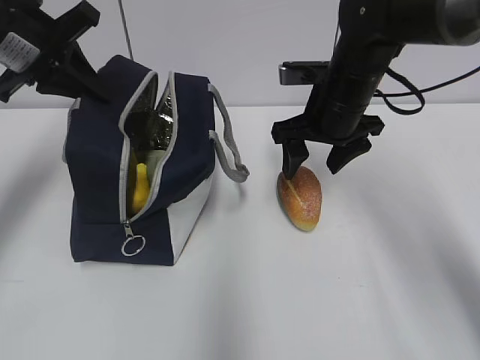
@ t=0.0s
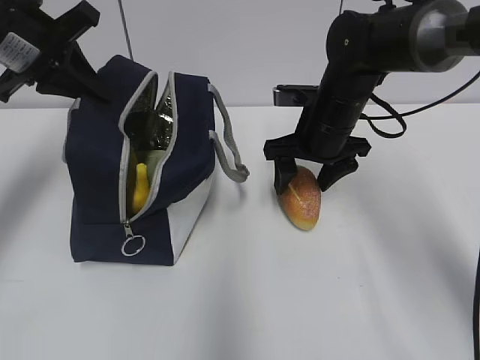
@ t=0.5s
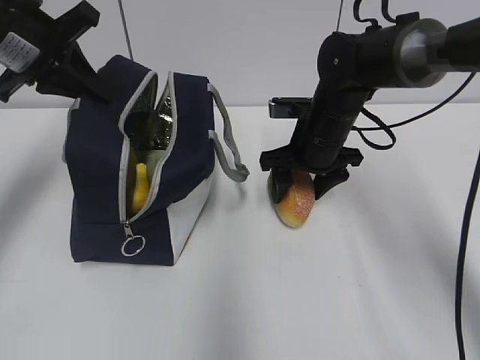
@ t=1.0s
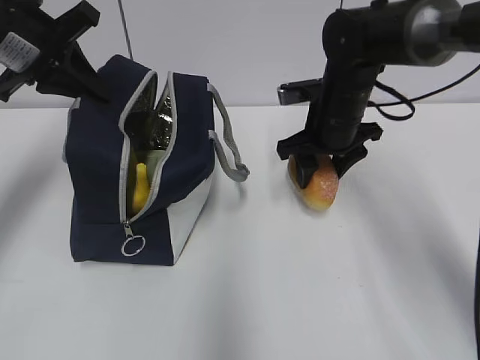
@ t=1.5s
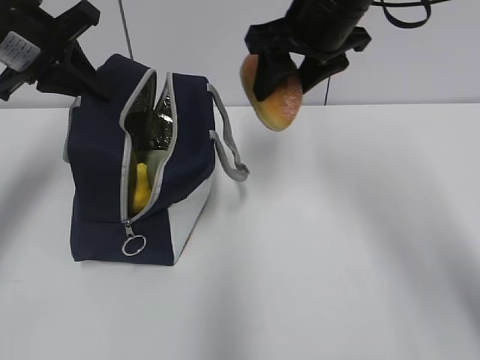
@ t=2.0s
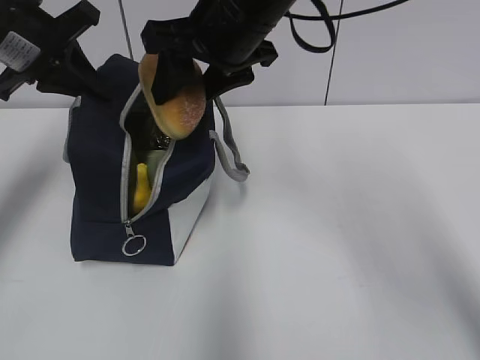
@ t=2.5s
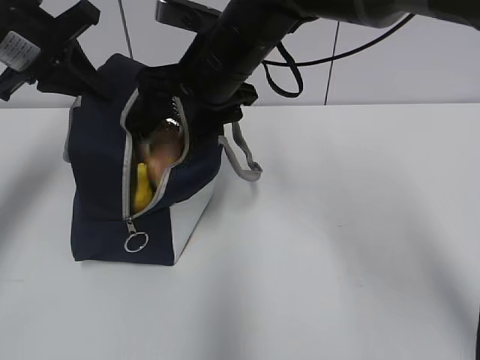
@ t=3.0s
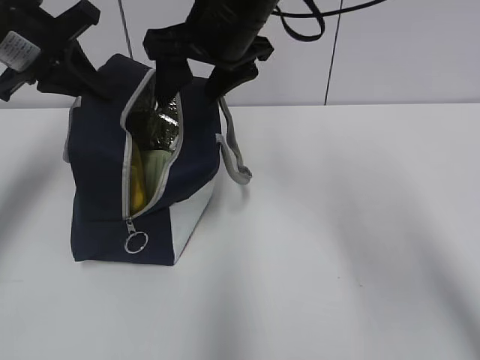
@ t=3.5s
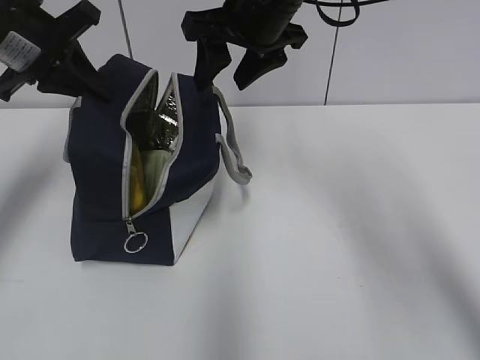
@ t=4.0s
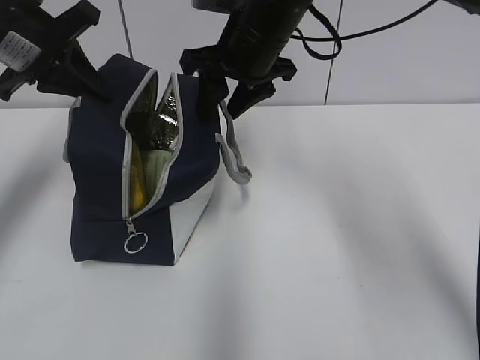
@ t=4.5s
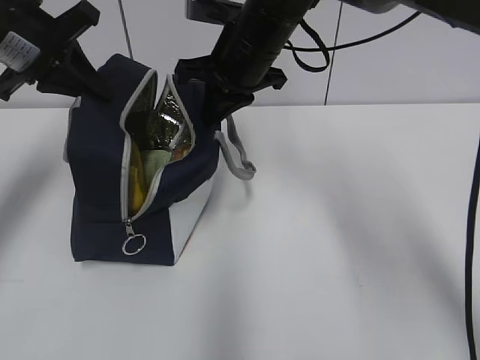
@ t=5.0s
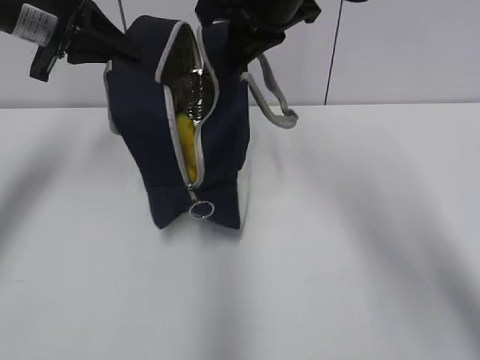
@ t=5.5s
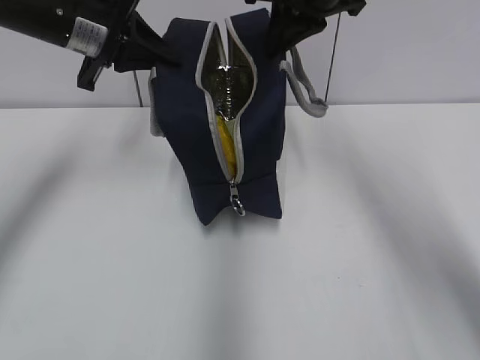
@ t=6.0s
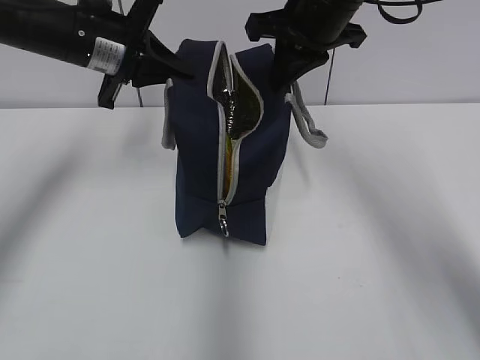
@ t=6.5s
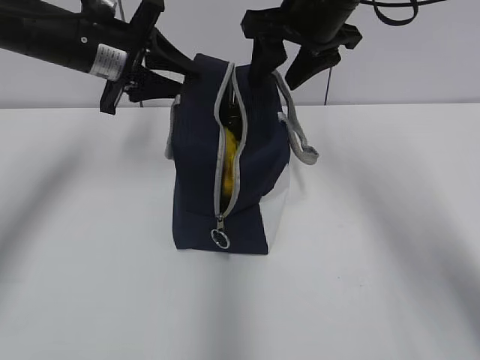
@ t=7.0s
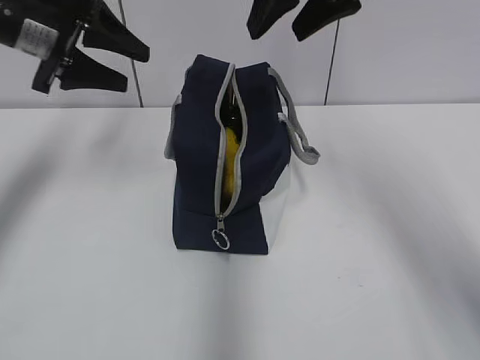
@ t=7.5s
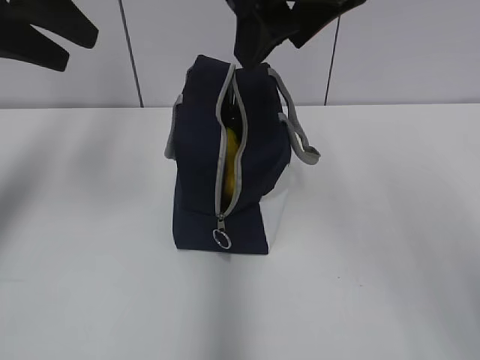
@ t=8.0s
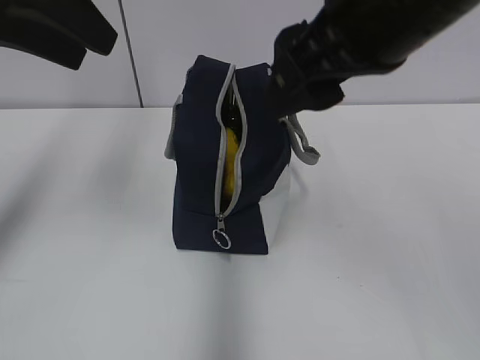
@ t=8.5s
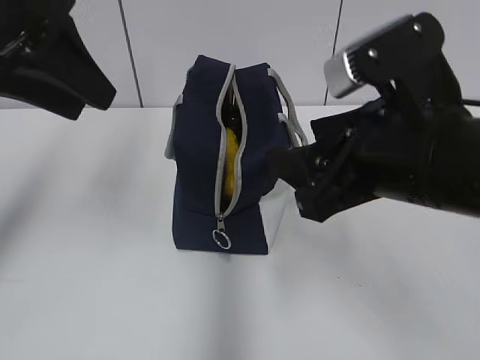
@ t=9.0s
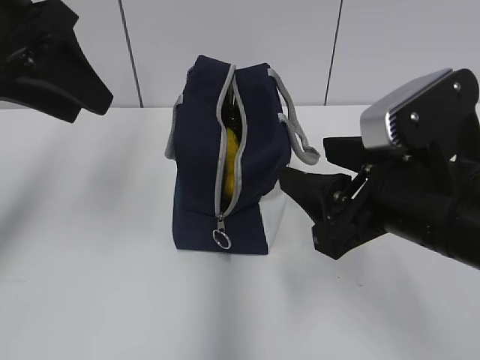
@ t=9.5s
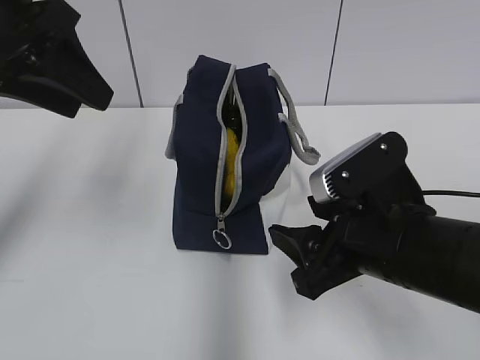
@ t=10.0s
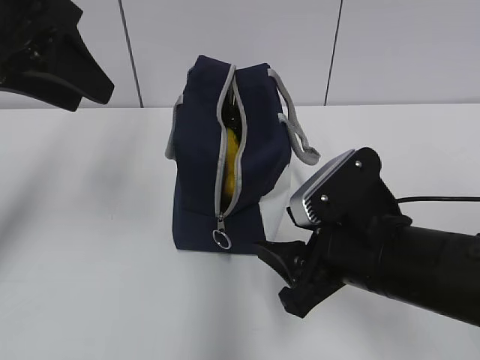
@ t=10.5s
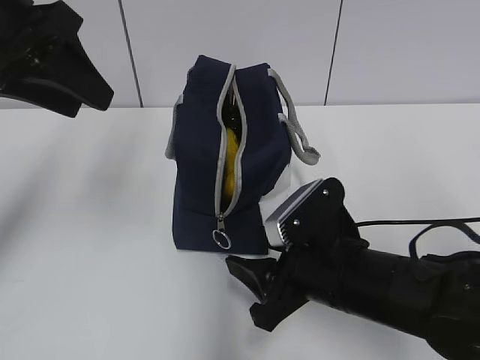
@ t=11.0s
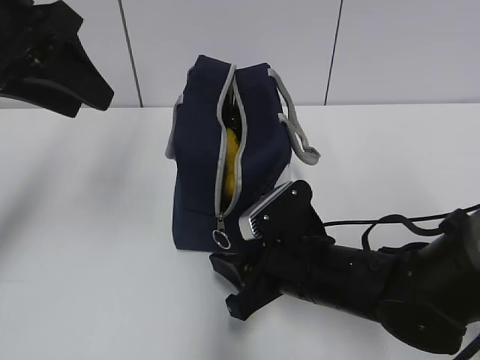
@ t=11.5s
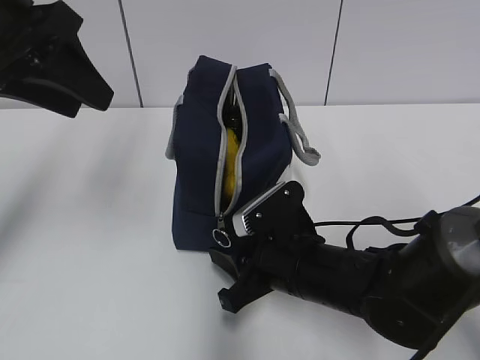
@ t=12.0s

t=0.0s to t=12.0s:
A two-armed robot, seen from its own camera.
t=0.0s to t=2.0s: The right gripper is displaced upward by about 10 cm.
t=2.0s to t=4.0s: The right gripper shifts roughly 5 cm to the left.
t=4.0s to t=6.0s: Both grippers travel together to the right, some 5 cm. The right gripper closes up.
t=6.0s to t=8.0s: The left gripper is displaced backward, upward and to the left by approximately 10 cm, and opens; the right gripper heads backward, covering about 10 cm, and opens up.
t=8.0s to t=10.0s: The left gripper shifts by about 5 cm. The right gripper travels downward by about 20 cm.
t=10.0s to t=12.0s: The right gripper travels downward, to the left and forward by approximately 10 cm, and closes up.

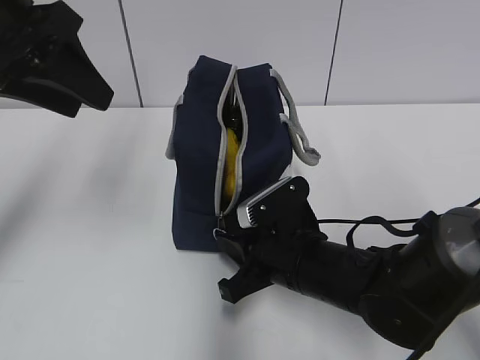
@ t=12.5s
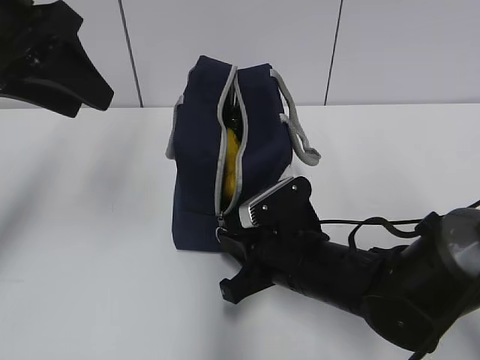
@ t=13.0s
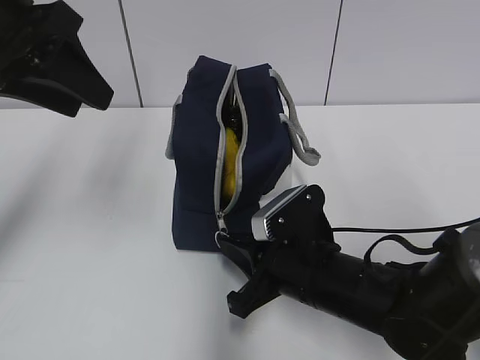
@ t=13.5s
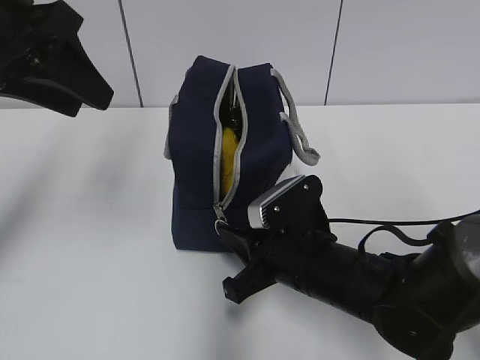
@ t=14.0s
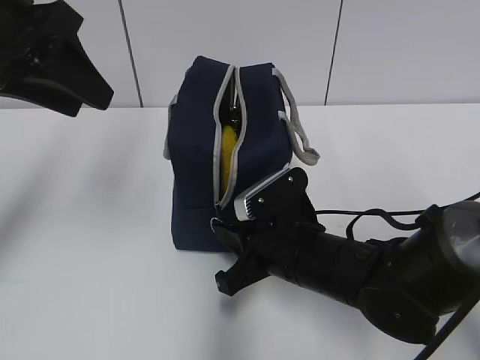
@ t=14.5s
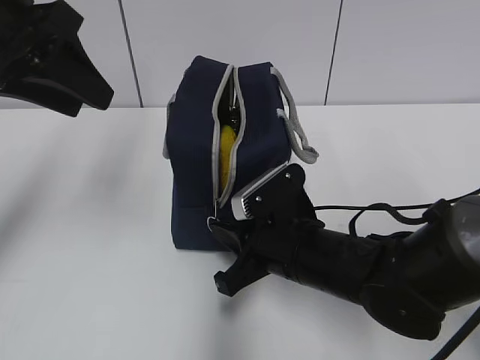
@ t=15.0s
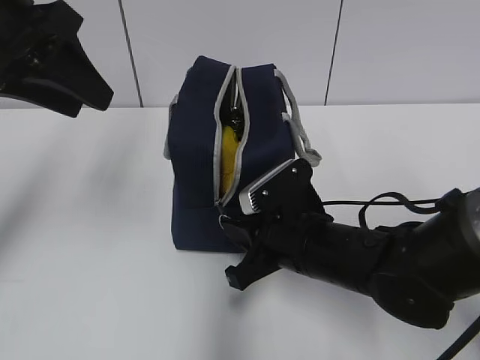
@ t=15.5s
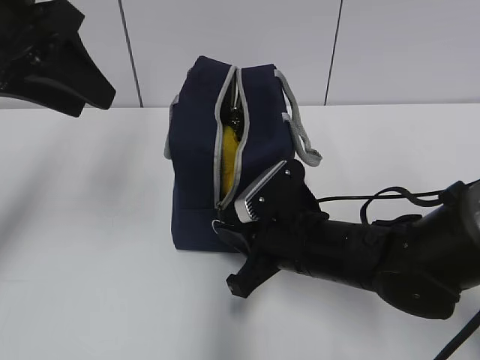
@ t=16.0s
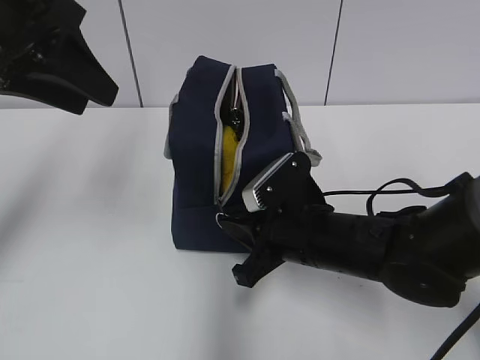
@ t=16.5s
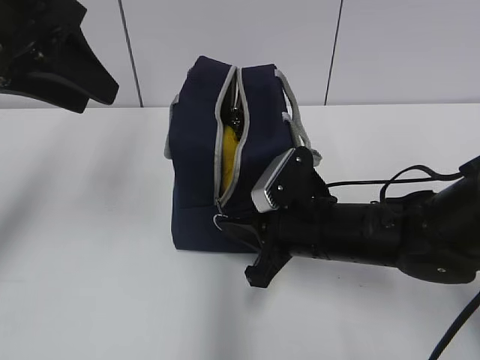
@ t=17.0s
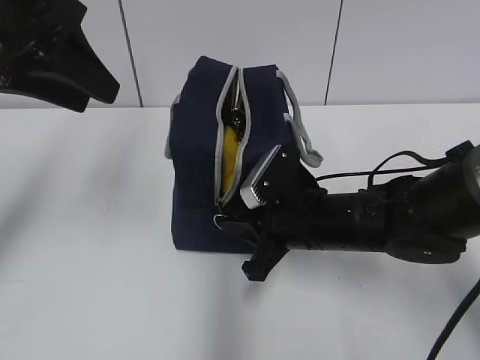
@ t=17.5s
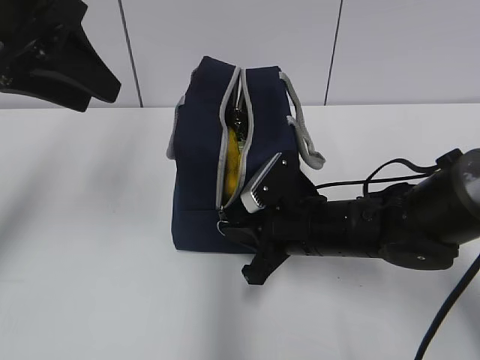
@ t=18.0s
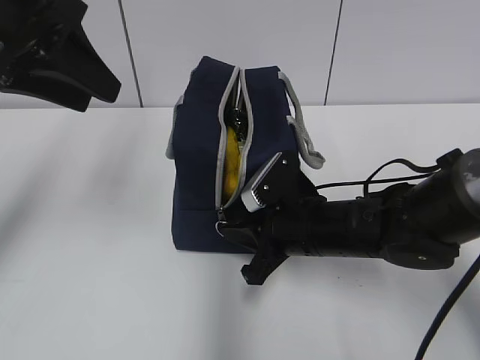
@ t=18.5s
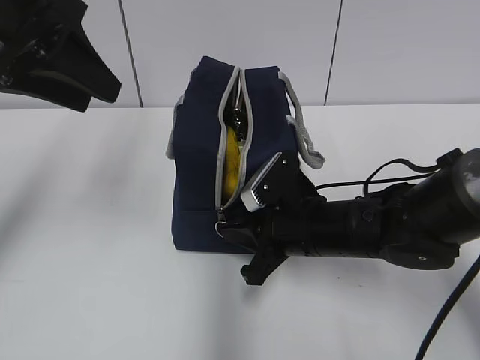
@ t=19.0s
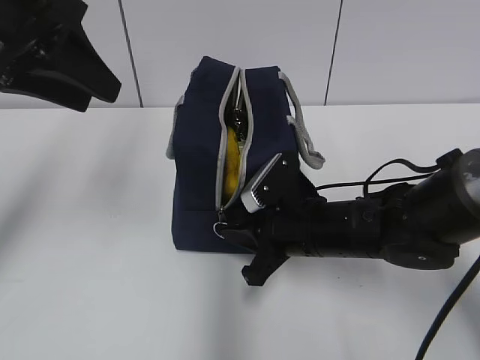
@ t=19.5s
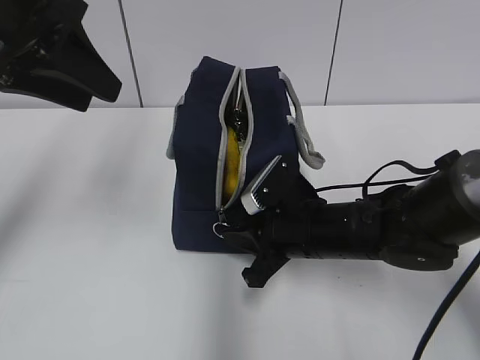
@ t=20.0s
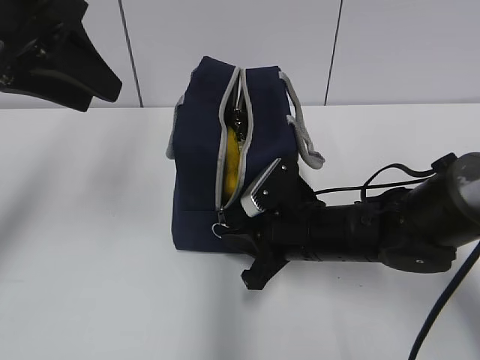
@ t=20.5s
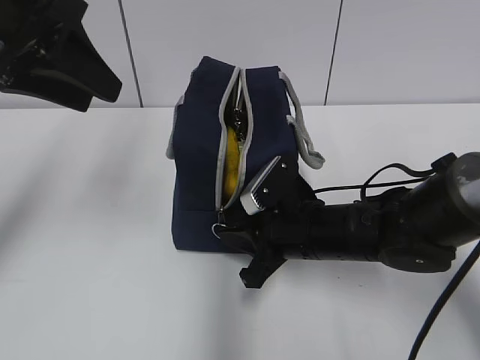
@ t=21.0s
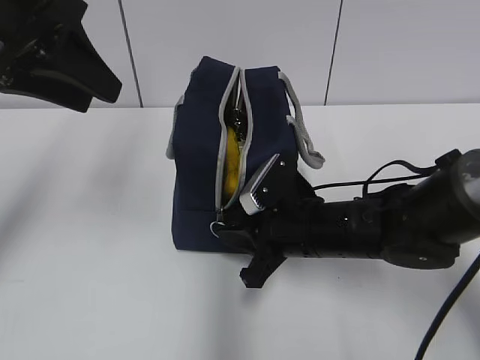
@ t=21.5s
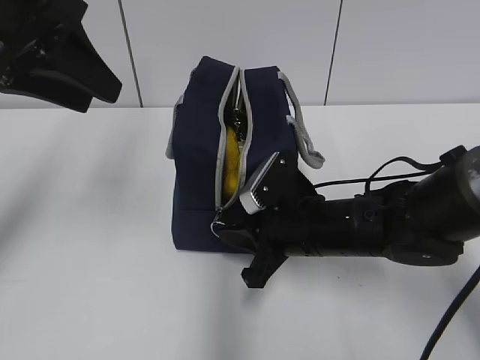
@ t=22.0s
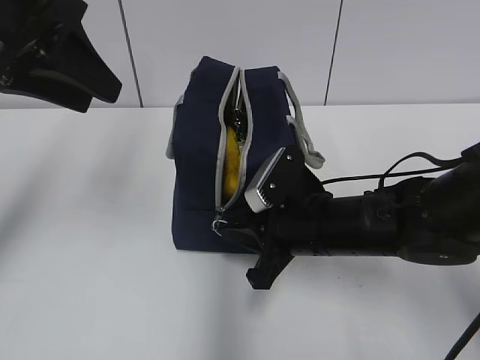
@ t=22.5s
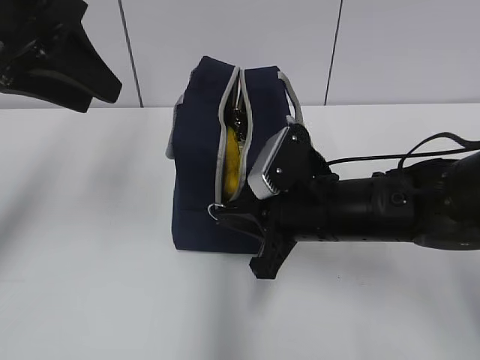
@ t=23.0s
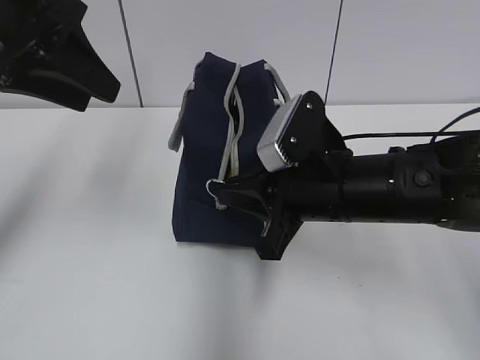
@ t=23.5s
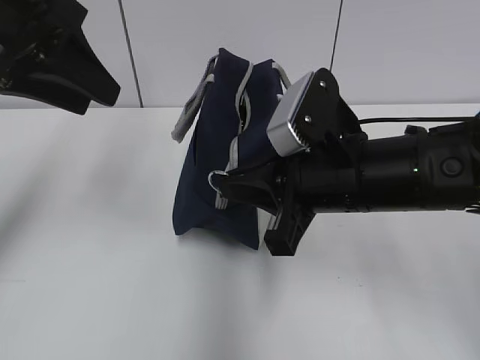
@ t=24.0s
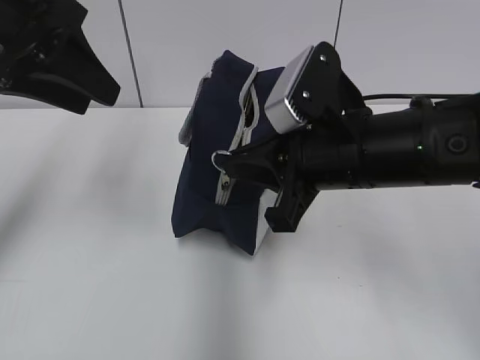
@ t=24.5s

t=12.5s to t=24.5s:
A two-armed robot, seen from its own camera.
t=12.5s to t=18.5s: The grippers move only a little.
t=18.5s to t=20.5s: Both grippers stay put.
t=20.5s to t=22.5s: The grippers move only a little.
t=22.5s to t=24.5s: The right gripper goes about 10 cm upward.

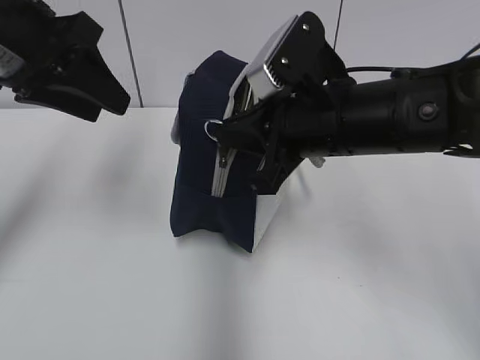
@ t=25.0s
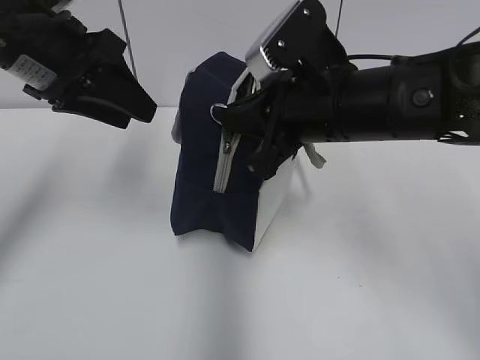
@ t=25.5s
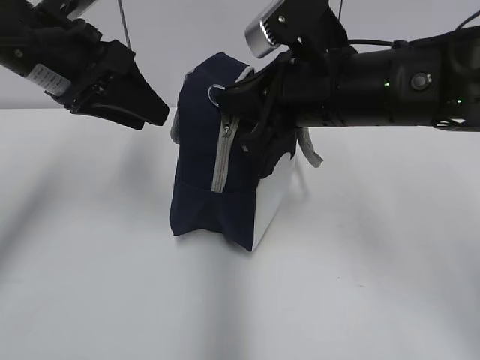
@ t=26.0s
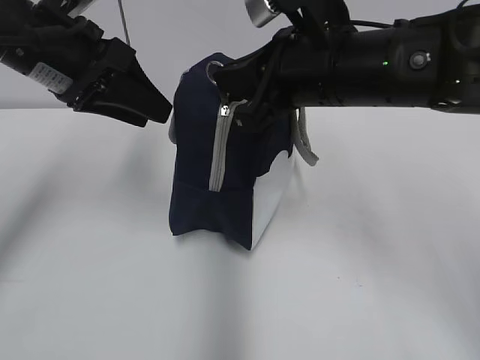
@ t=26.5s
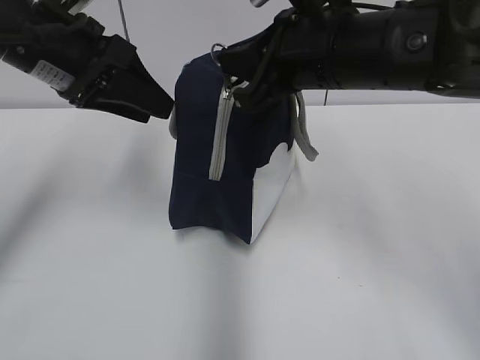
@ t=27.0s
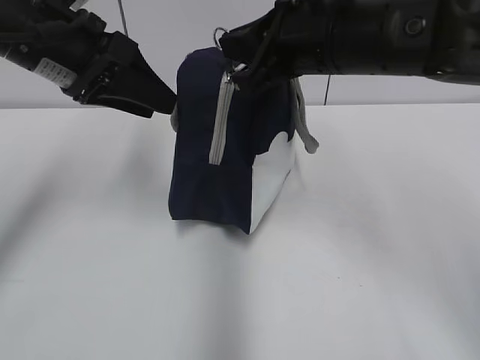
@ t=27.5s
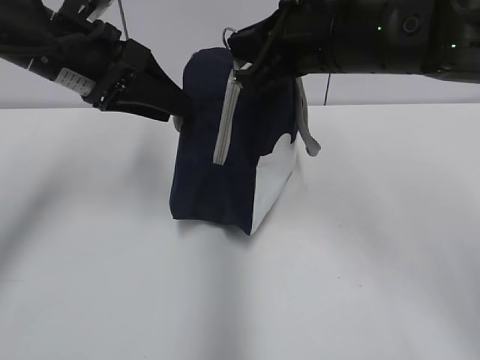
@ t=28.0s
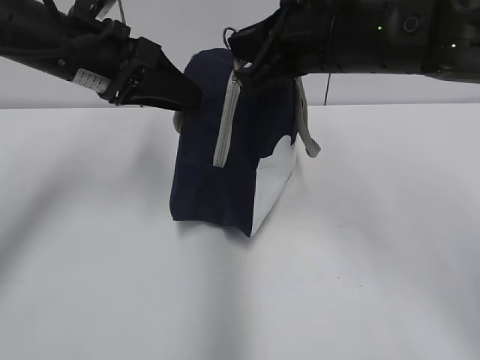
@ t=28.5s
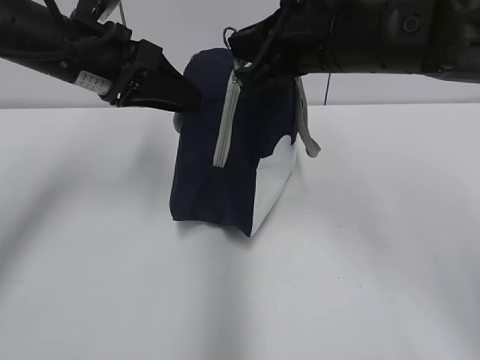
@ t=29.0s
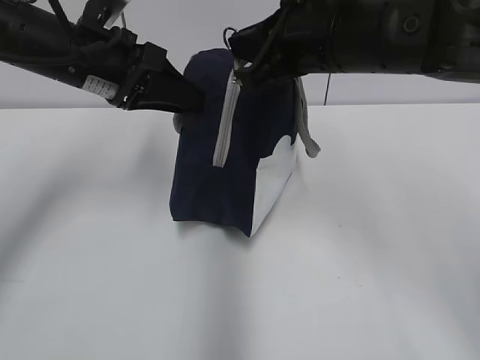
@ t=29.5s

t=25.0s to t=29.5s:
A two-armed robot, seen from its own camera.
t=25.0s to t=27.0s: The right gripper shifts by about 5 cm.
t=27.0s to t=29.5s: The grippers make only small movements.
